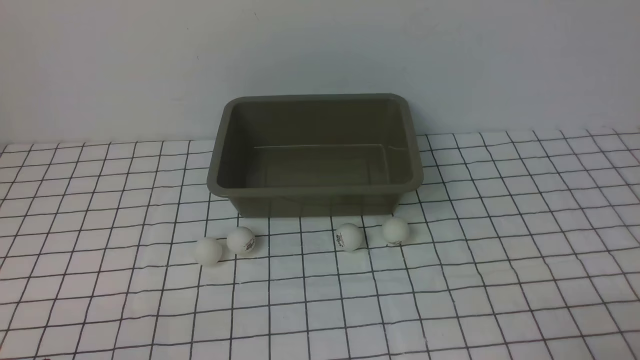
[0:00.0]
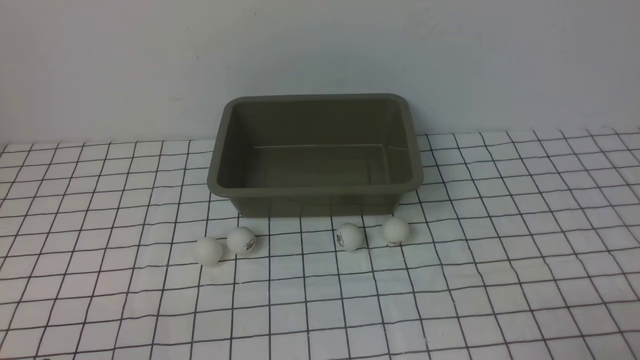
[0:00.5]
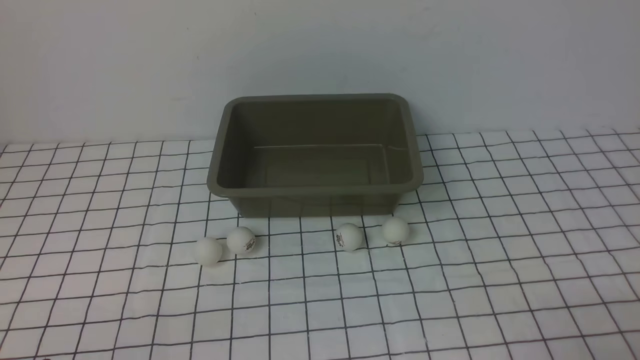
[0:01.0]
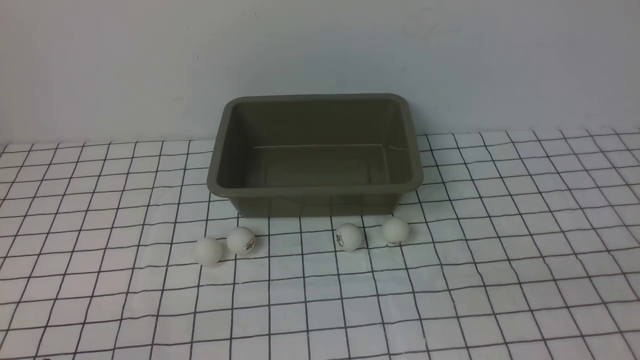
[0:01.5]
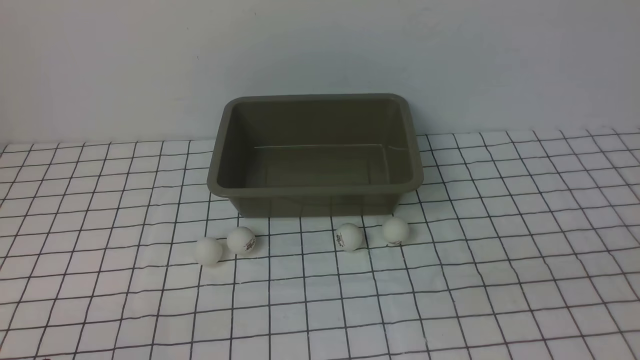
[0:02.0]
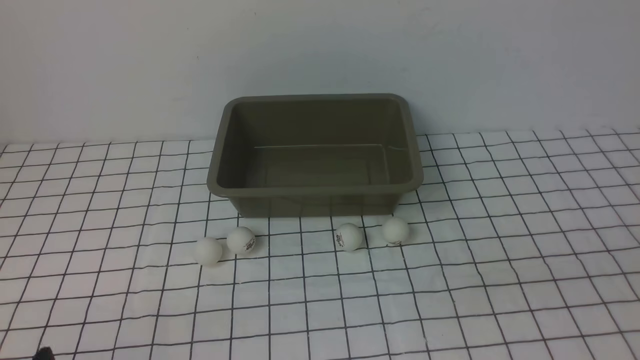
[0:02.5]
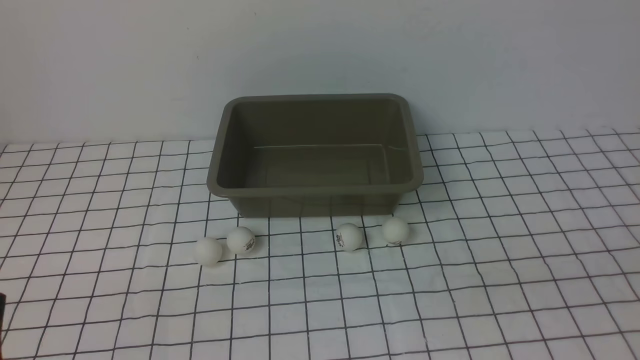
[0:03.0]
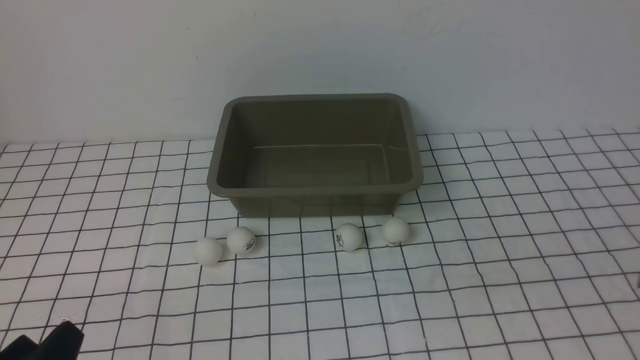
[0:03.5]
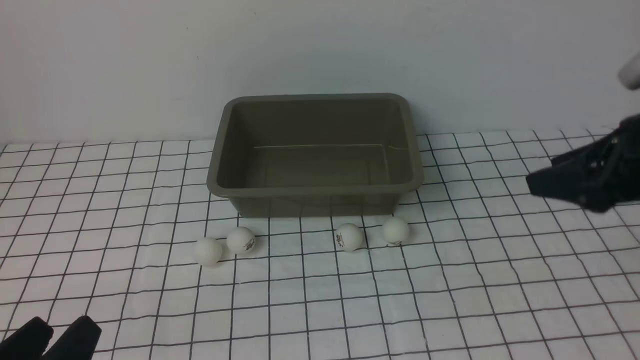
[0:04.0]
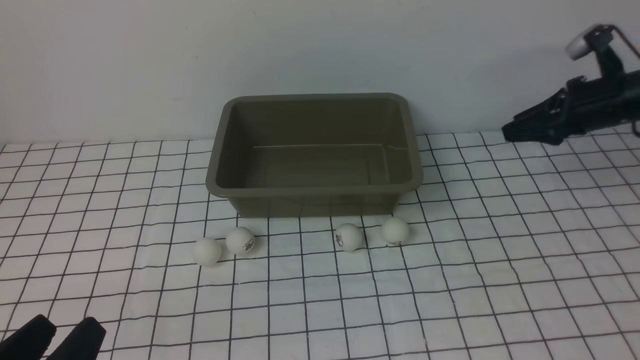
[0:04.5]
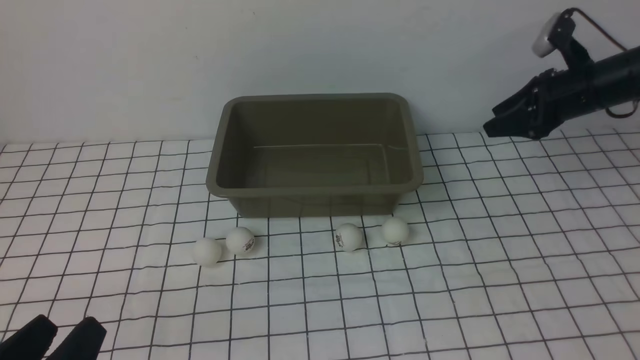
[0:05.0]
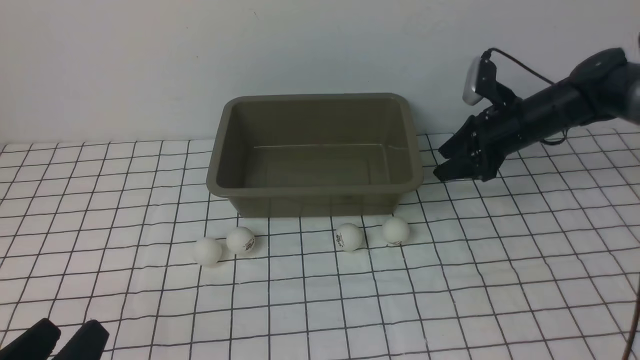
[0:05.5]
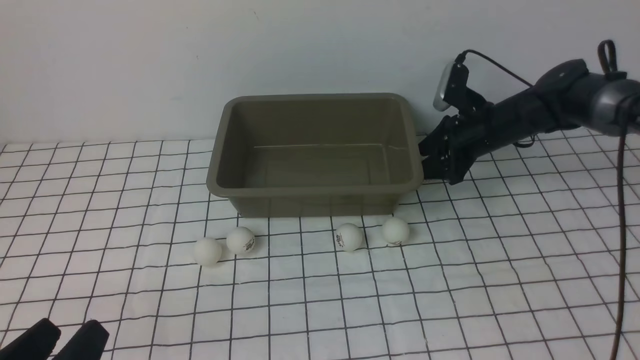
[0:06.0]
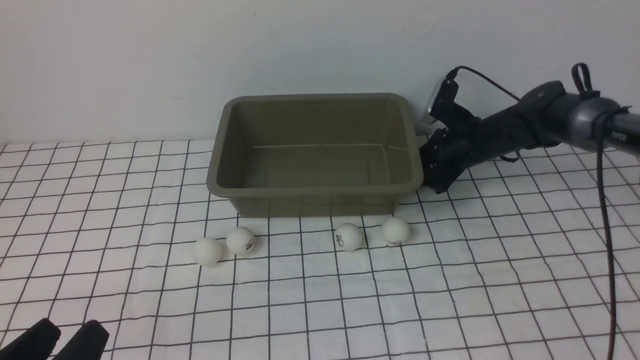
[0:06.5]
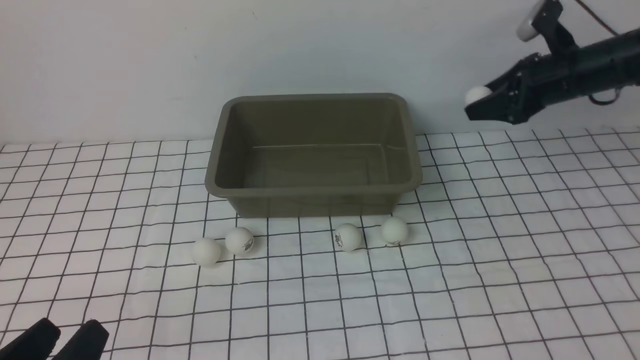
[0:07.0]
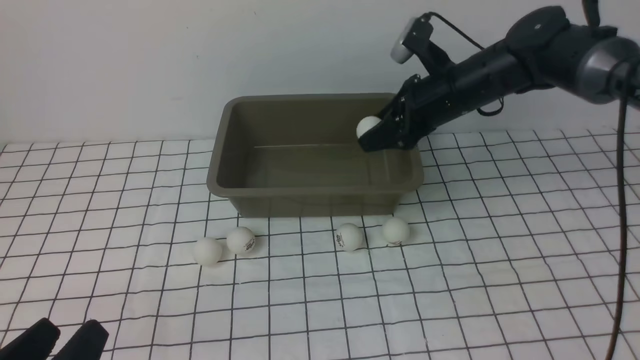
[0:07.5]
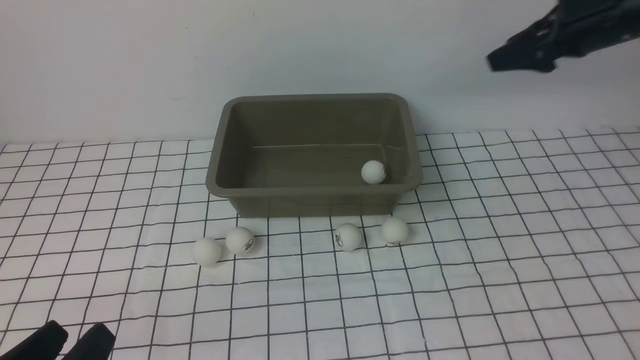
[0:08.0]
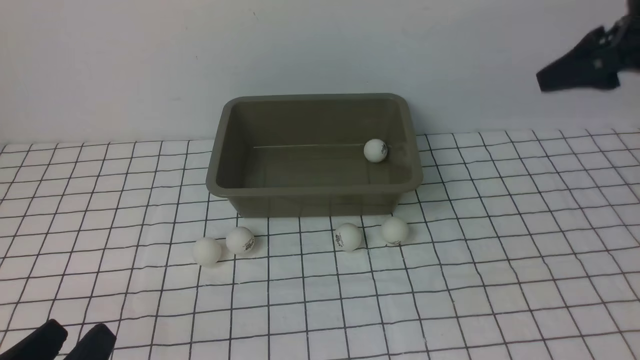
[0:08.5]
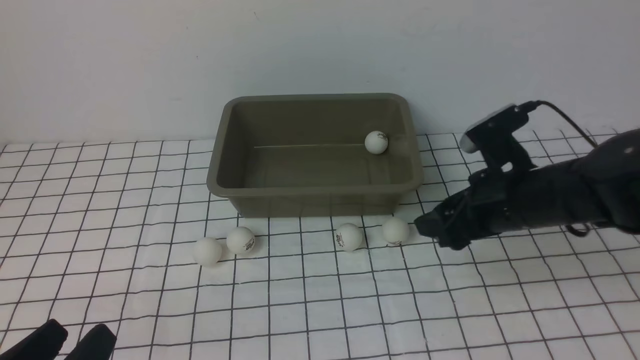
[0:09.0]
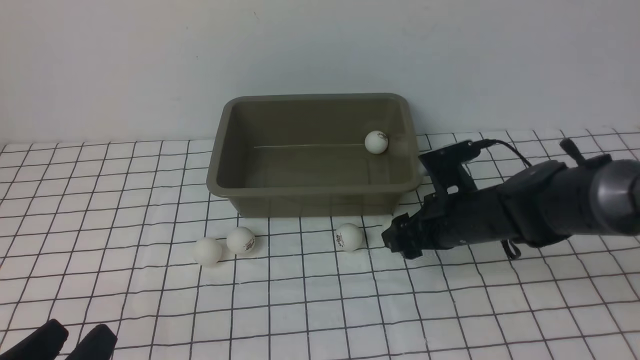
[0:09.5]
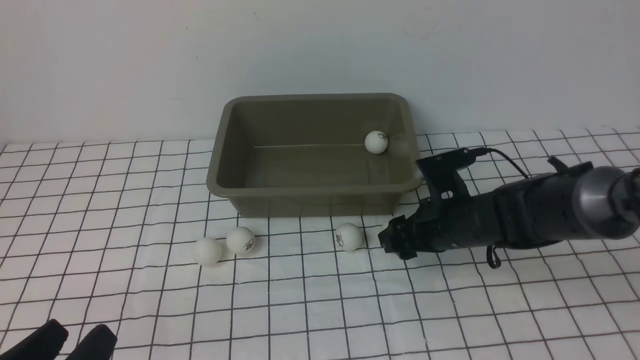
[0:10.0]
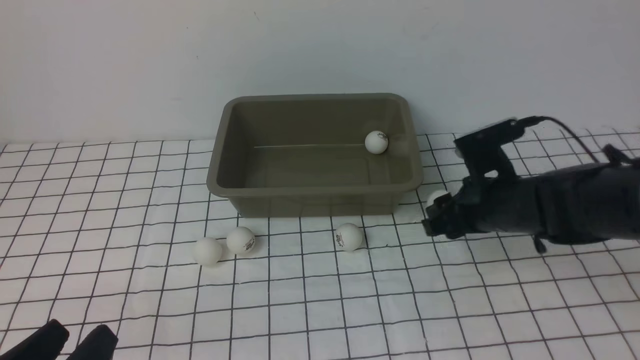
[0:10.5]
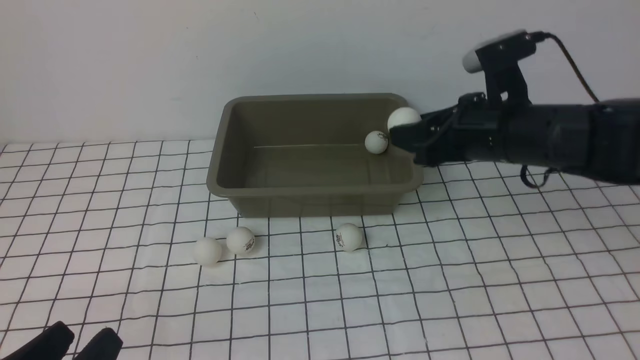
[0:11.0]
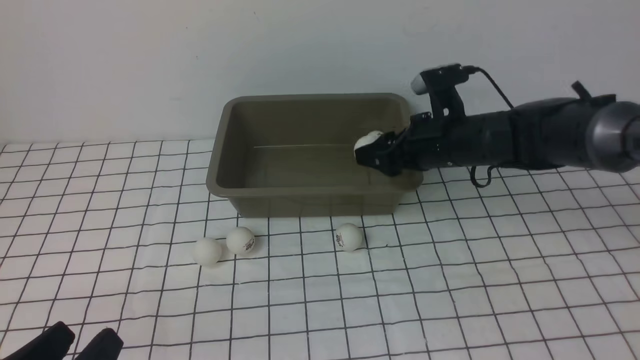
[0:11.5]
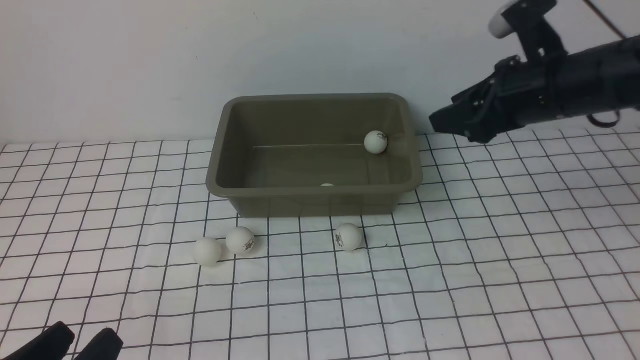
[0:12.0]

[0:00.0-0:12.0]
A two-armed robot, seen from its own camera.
Step, 0:00.0 to 0:06.5: use the right arm to clamp the table tennis ball closest to it.
Step, 0:07.0 to 0:07.5: use the right arm to put the table tennis ball into the box.
Step, 0:08.0 to 0:10.0: use the right arm to clamp the table tennis ball closest to it.
Step, 0:10.5 to 0:11.5: use the right arm to put the table tennis ball into the box.
0:02.0 to 0:04.0: The right gripper is displaced forward by roughly 40 cm.
0:04.0 to 0:06.0: The right gripper shifts roughly 20 cm downward, to the left and forward.
0:06.0 to 0:08.0: The right gripper heads upward and to the right, covering some 20 cm.
0:08.0 to 0:10.0: The right gripper heads downward and to the left, covering about 25 cm.
0:10.0 to 0:12.0: The right gripper heads upward, covering roughly 15 cm.

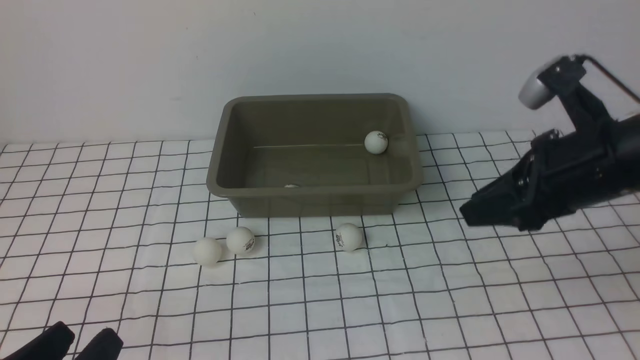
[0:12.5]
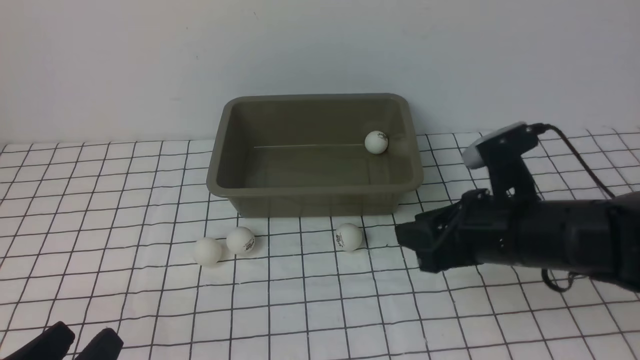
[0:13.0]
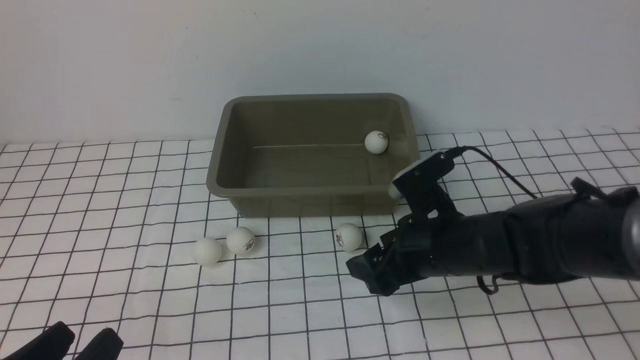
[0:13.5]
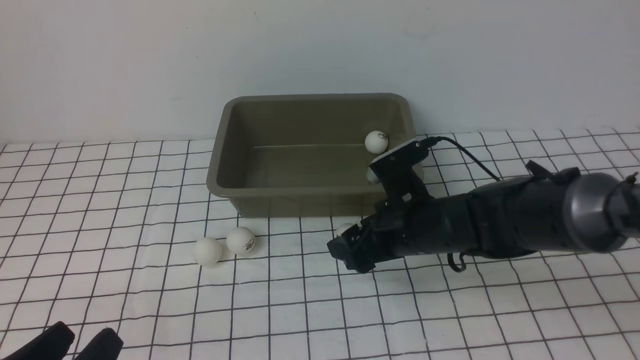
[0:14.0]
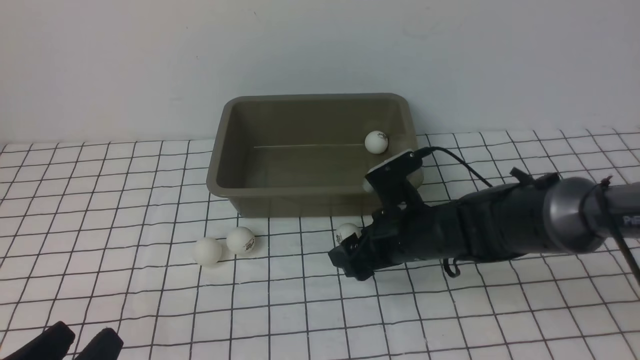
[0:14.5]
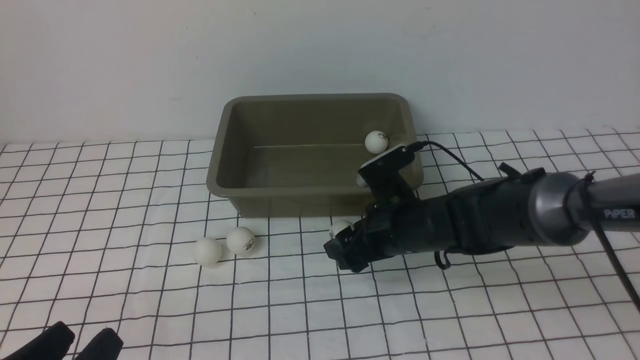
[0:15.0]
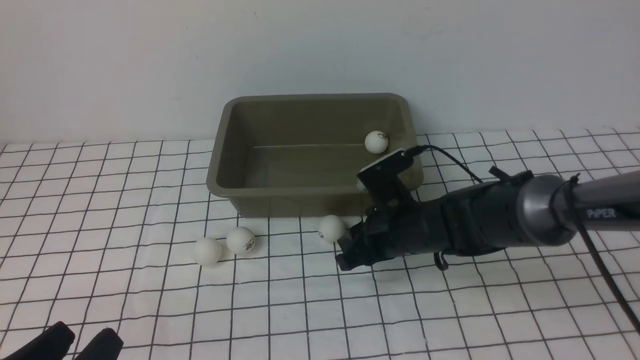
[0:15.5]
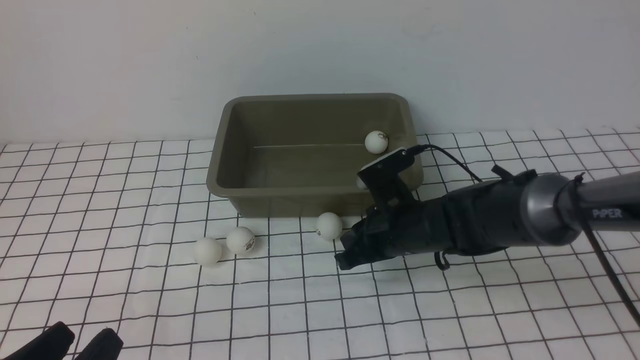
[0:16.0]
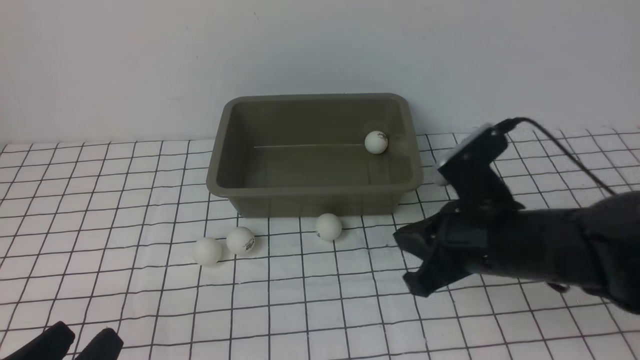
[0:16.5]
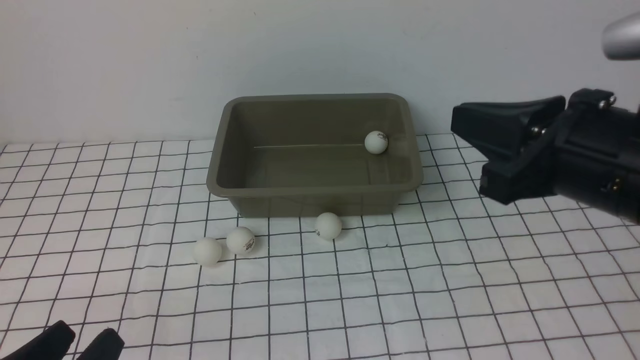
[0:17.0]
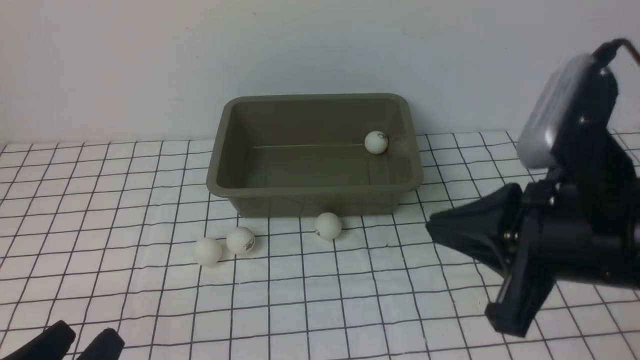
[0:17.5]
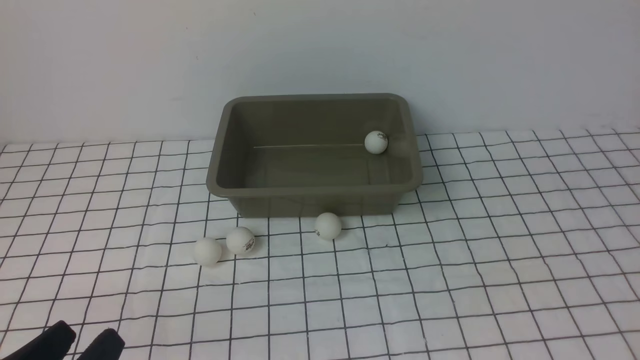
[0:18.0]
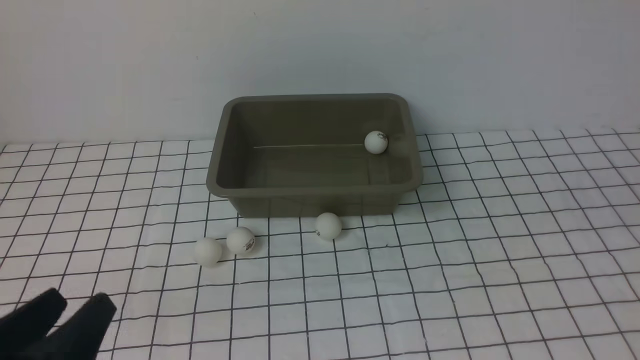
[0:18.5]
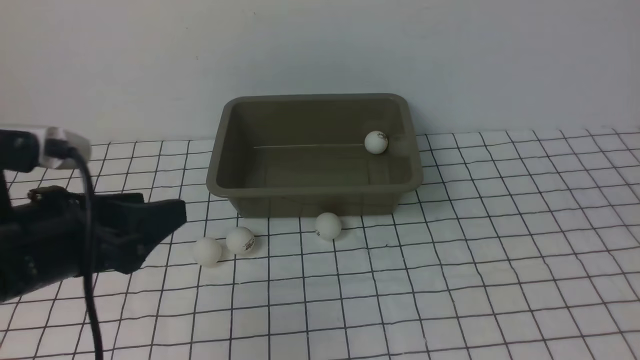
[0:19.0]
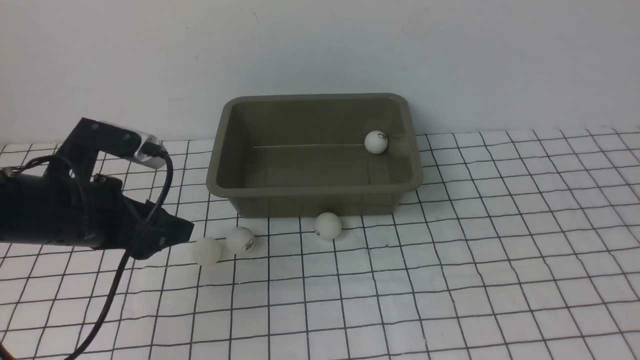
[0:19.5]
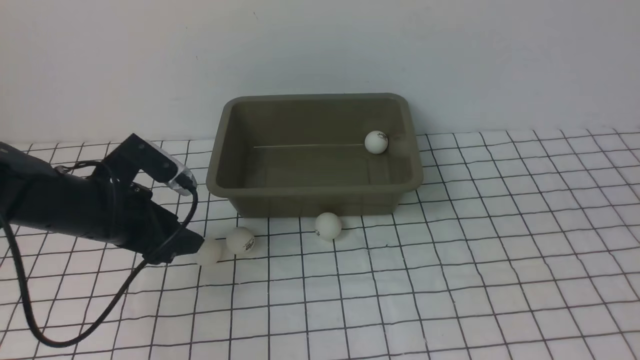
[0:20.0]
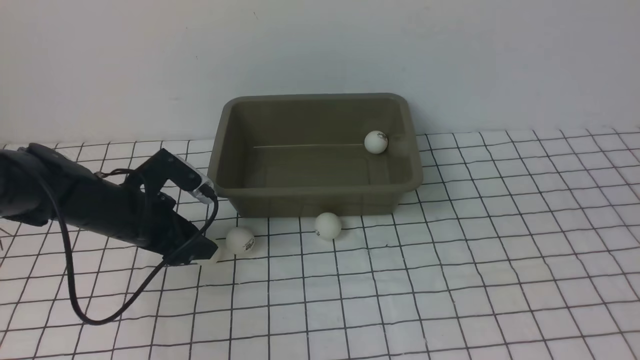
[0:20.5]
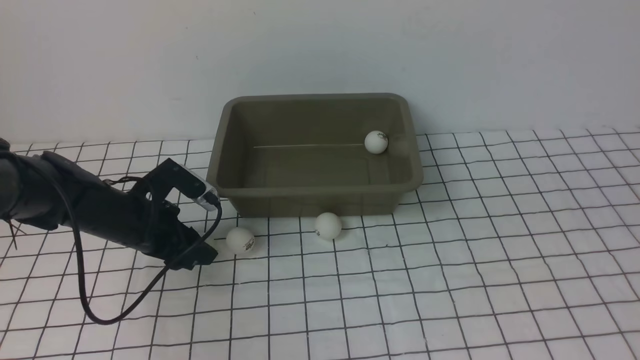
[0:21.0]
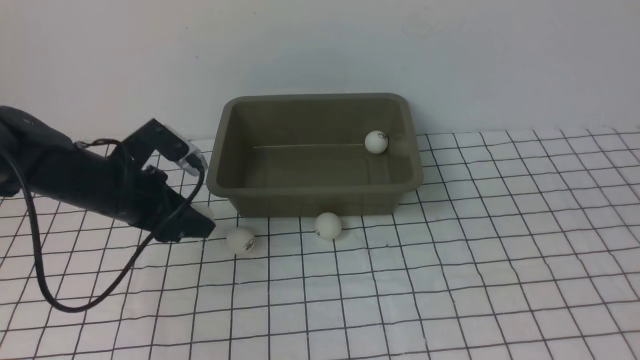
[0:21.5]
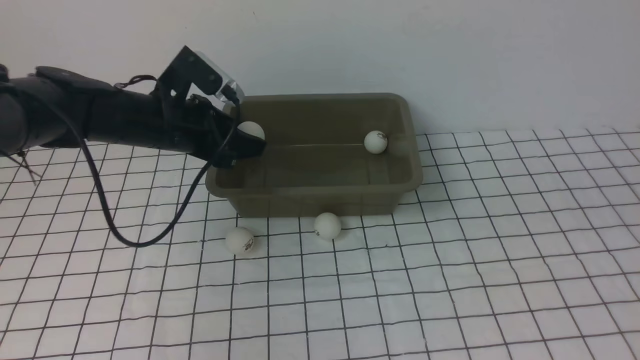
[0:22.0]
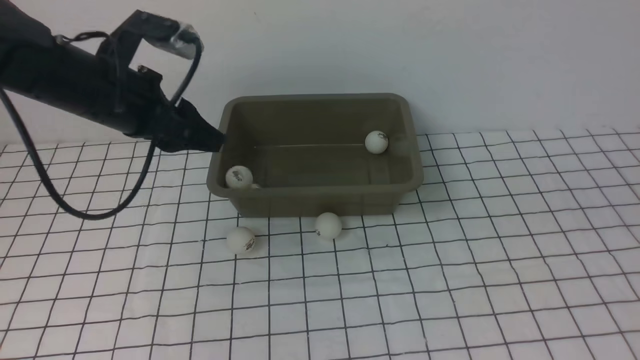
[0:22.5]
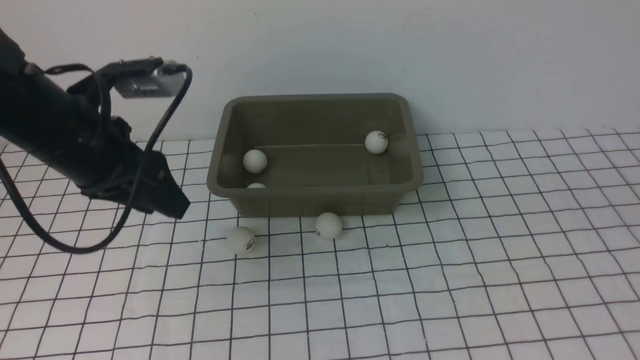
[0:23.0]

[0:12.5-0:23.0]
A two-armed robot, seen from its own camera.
Step, 0:12.5 to 0:21.0: use the left arm to clamp the table tennis ball closest to it.
Step, 0:21.5 to 0:22.0: use the left arm to put the table tennis ball into the box.
0:12.5 to 0:14.5: The right gripper goes roughly 20 cm downward and to the left, and opens up.
0:14.5 to 0:16.5: The right gripper is displaced upward, backward and to the right by approximately 15 cm, and closes up.
0:16.5 to 0:19.0: The left gripper shifts approximately 15 cm forward and upward; the right gripper travels backward, to the right and upward by about 25 cm.
0:19.0 to 0:21.0: The left gripper travels forward and downward by some 20 cm.
0:21.0 to 0:23.0: The left gripper heads upward and to the right, covering roughly 10 cm.
